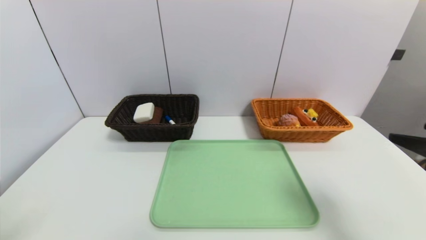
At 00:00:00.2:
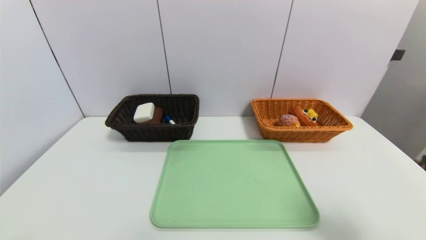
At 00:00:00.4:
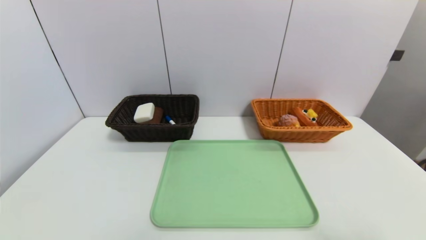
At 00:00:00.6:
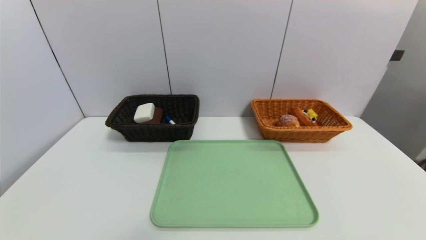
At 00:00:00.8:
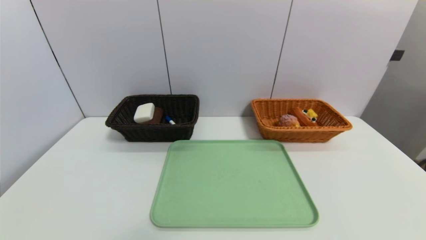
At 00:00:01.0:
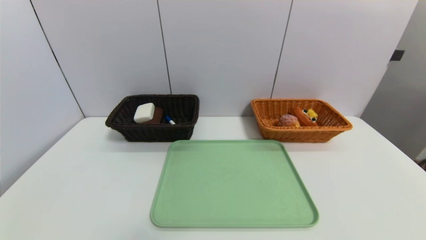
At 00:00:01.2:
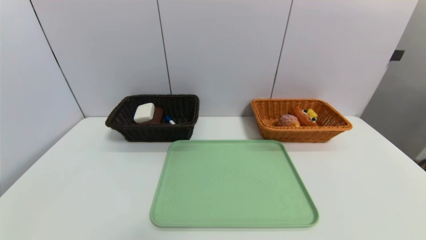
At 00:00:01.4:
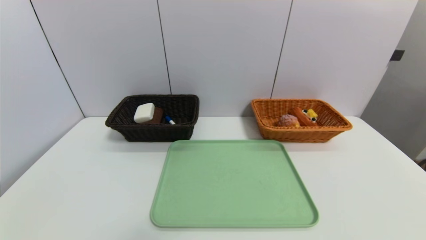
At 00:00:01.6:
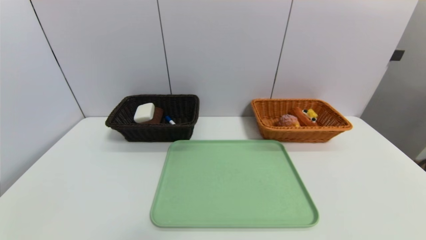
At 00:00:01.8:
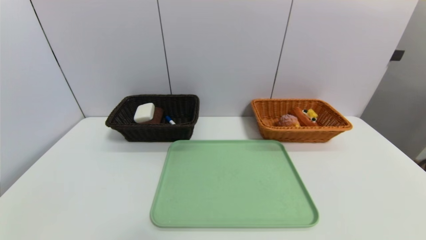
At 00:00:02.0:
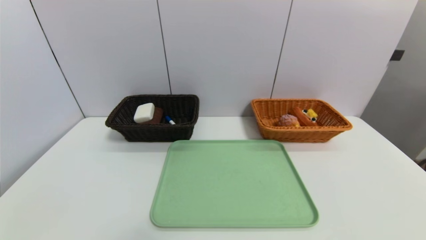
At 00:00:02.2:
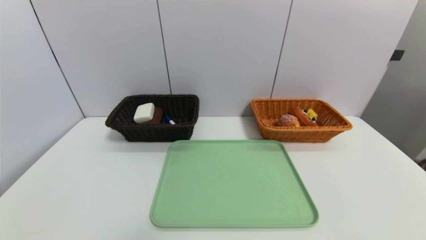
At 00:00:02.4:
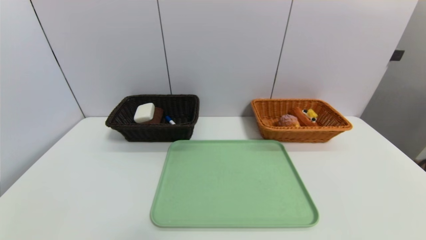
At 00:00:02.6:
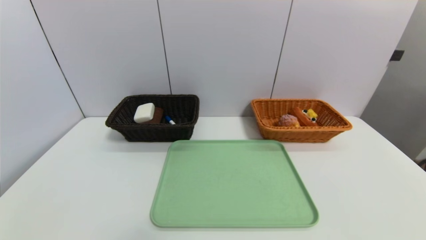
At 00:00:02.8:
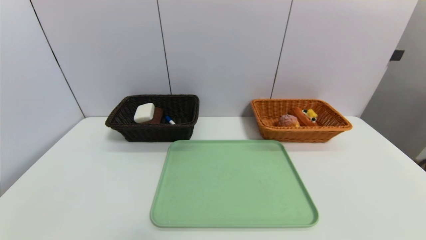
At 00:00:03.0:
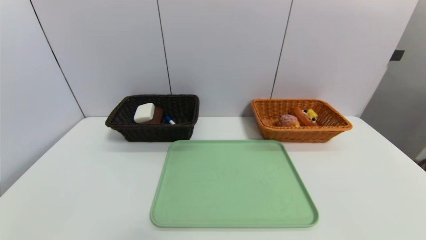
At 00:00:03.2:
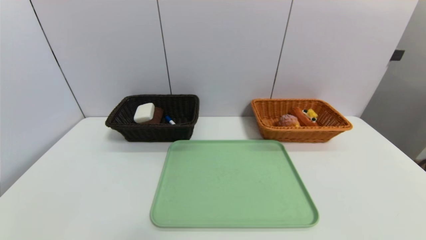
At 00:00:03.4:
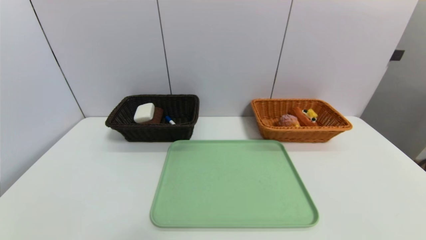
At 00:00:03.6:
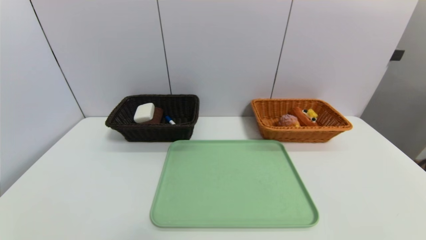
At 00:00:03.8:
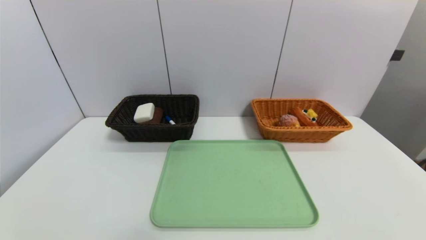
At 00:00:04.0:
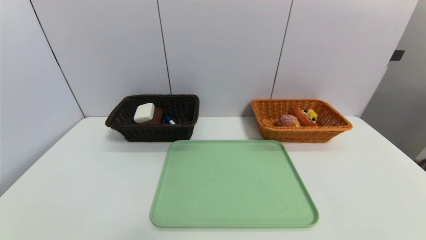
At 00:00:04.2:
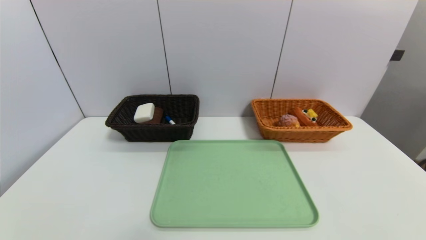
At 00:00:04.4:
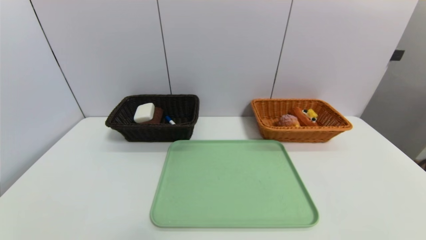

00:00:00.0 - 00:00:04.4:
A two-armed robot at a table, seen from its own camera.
Task of the whole recording: place the food in the right basket with the right gripper, and place the non food items in the left basket with the left gripper.
00:00:00.0 - 00:00:01.4: The right gripper moves backward and downward, about 15 cm.
